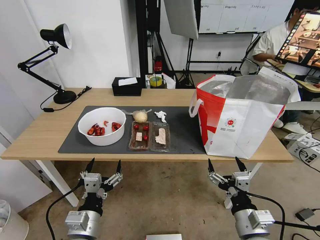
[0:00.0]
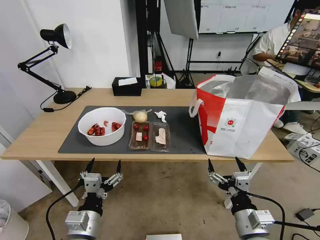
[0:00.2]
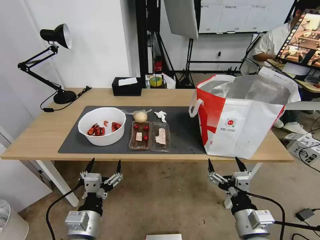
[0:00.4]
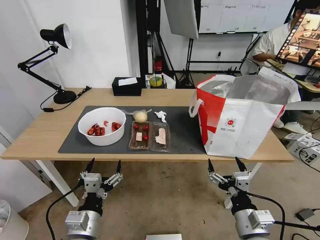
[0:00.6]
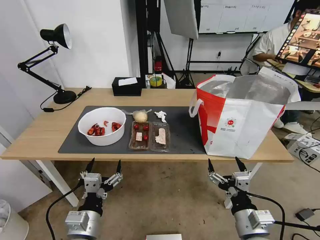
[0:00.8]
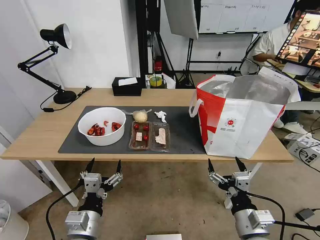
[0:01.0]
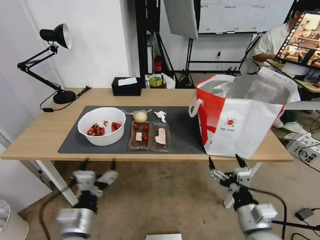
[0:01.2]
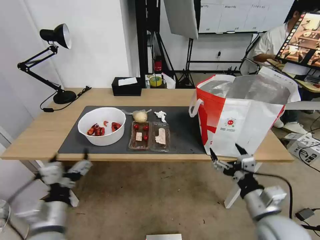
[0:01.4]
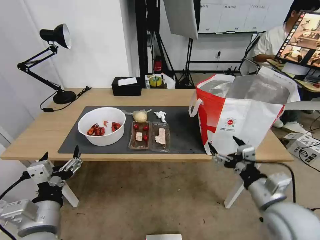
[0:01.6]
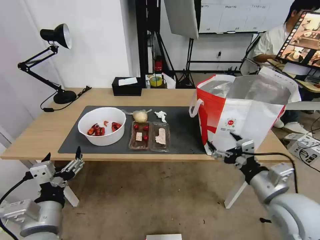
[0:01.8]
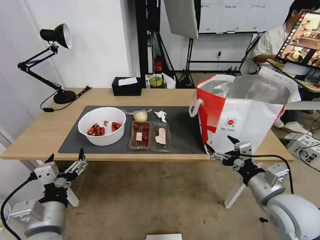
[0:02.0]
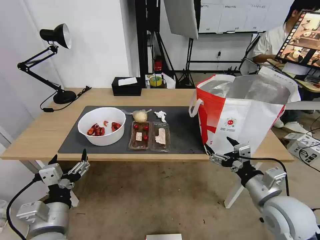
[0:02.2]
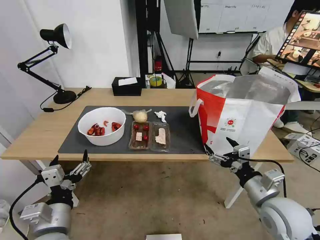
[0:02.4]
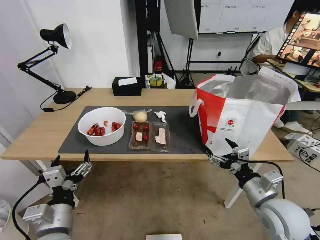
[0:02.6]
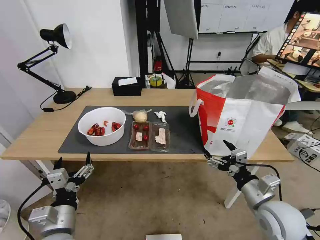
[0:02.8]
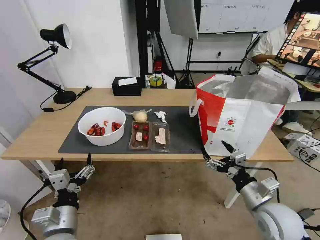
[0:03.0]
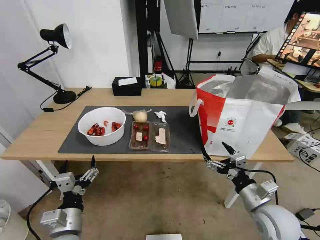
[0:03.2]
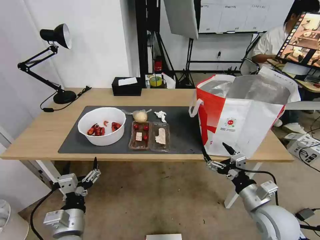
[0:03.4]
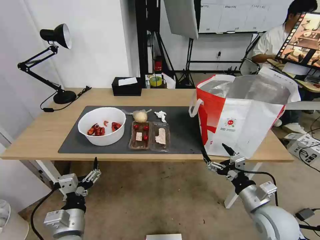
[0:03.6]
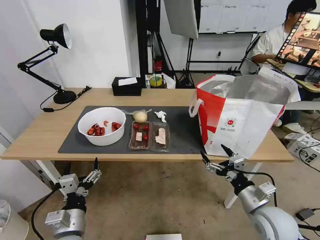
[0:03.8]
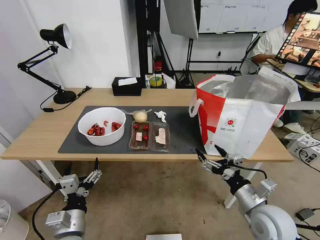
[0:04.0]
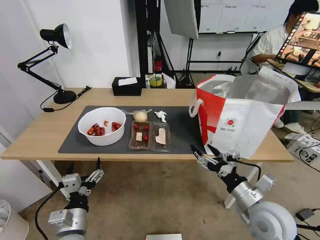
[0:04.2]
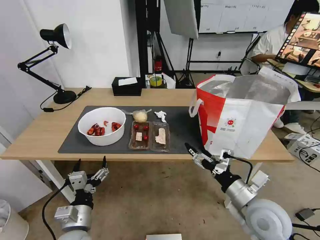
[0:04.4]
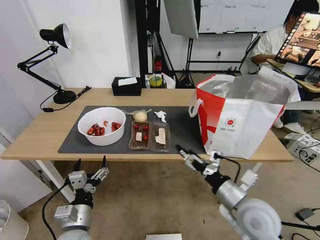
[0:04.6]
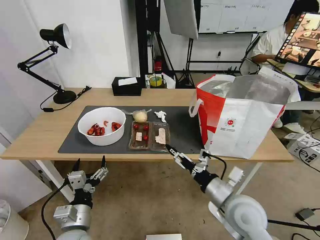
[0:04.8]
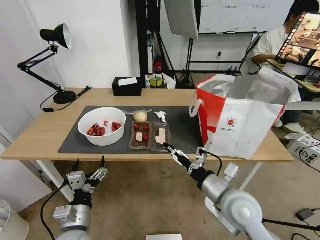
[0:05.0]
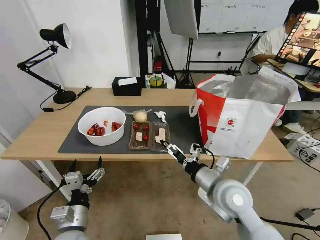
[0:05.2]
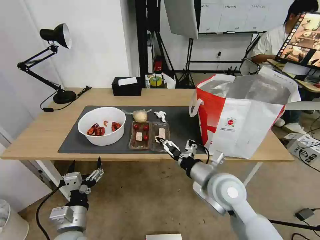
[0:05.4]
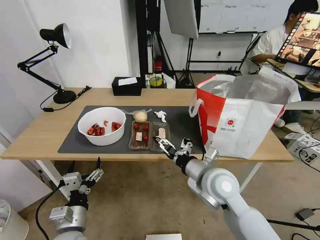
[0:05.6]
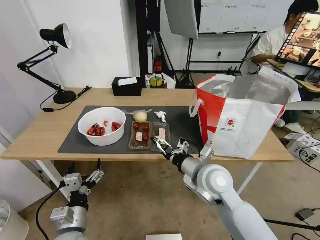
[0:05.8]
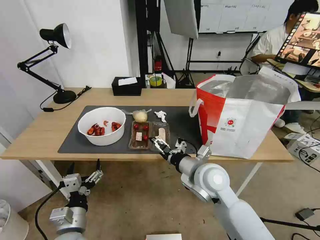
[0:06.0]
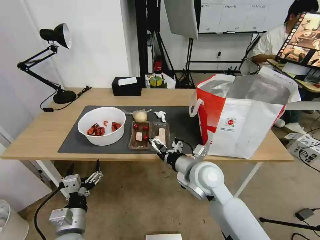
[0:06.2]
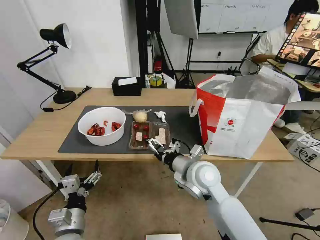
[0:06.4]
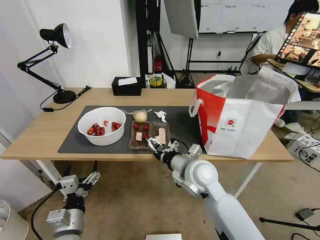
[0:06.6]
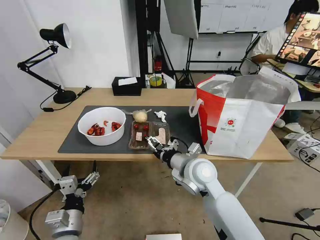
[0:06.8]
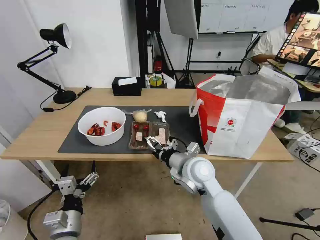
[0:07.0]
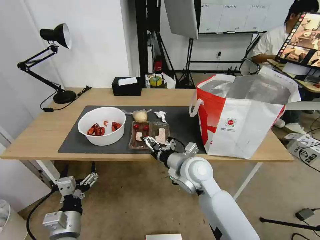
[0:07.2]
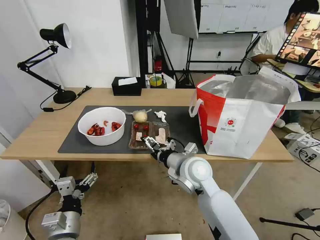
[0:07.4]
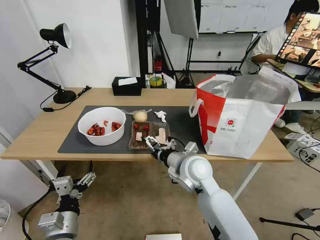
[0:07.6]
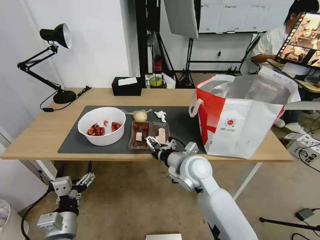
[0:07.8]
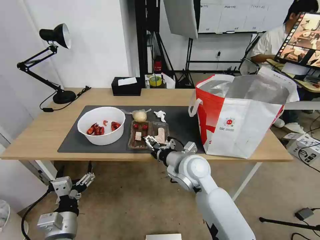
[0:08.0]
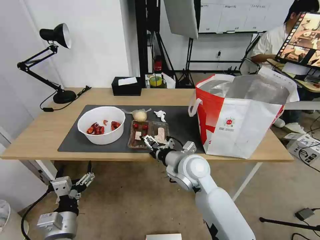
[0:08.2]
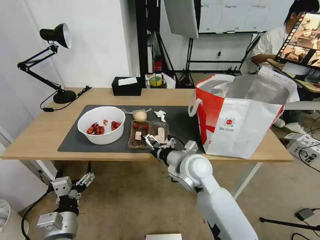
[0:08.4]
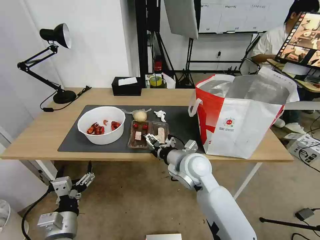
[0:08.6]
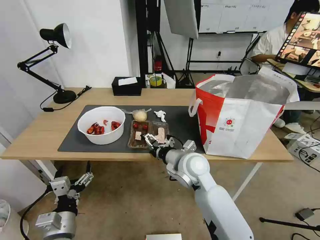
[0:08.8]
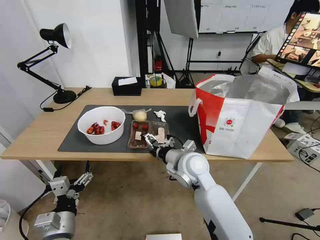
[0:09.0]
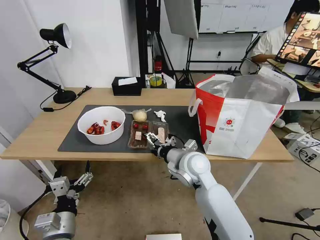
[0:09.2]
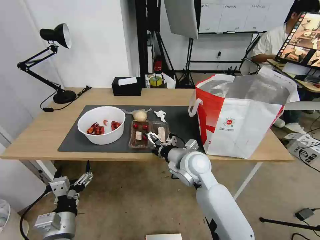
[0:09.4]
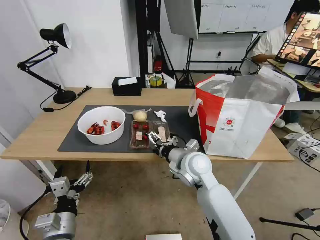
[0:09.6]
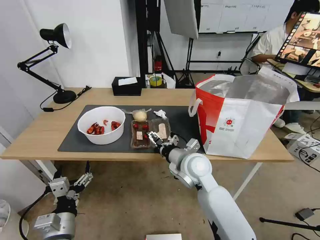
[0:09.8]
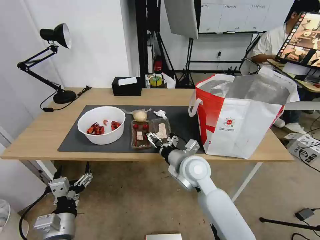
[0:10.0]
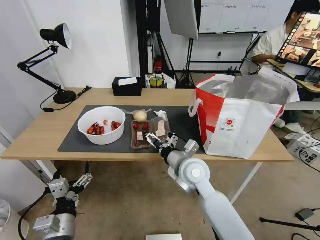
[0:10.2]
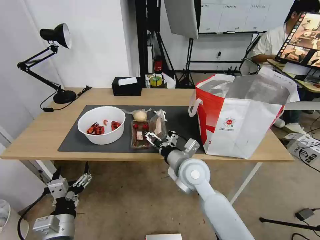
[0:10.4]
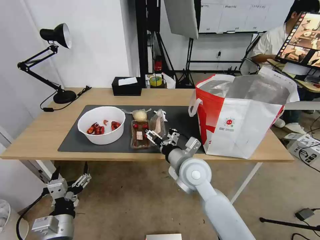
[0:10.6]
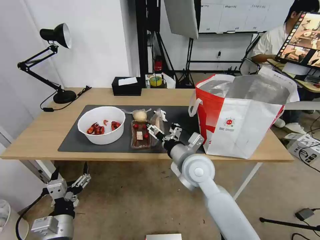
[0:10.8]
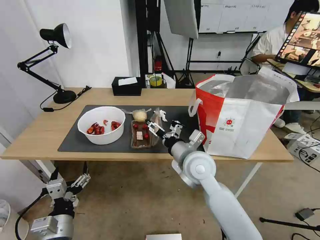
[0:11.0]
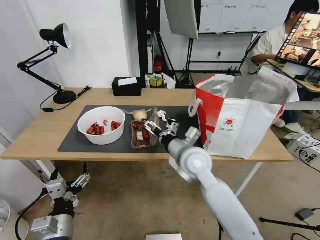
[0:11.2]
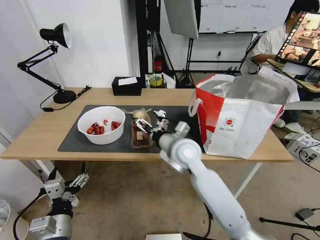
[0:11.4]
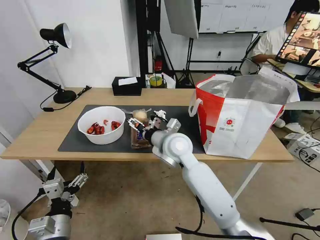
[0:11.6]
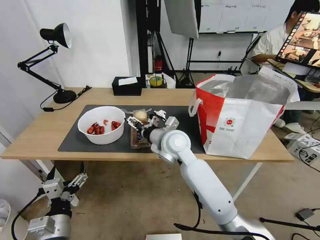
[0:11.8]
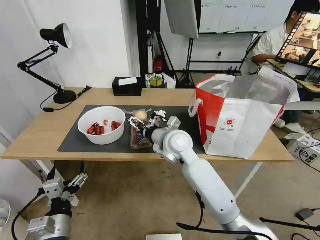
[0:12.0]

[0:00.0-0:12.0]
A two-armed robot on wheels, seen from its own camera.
Task of the whole recording: Pick up the trash from the table and place it into the takeout bag.
0:01.6 to 0:03.0: The right gripper shifts by some 5 cm. Meanwhile the left gripper travels downward by approximately 5 cm.
0:03.0 to 0:04.4: The right gripper ends up approximately 5 cm from where it was.
0:04.4 to 0:06.0: The right gripper goes about 15 cm to the left and forward.
0:06.0 to 0:10.4: The grippers stay close to where they were, moving slightly.
0:10.4 to 0:12.0: The right gripper goes about 10 cm forward.

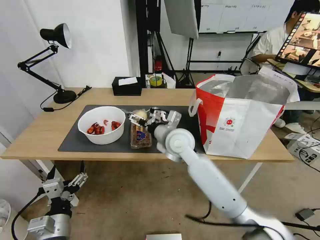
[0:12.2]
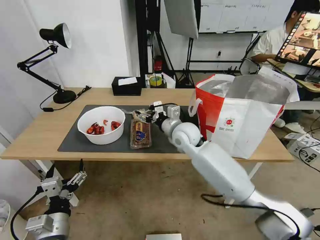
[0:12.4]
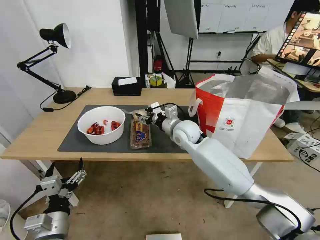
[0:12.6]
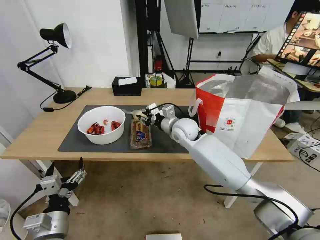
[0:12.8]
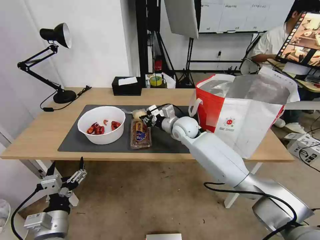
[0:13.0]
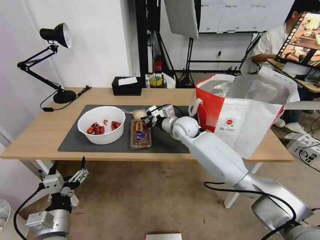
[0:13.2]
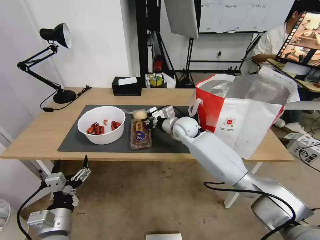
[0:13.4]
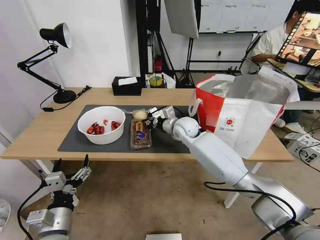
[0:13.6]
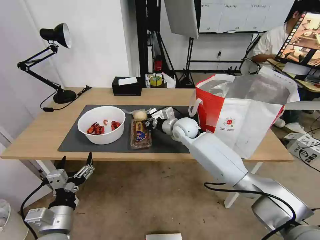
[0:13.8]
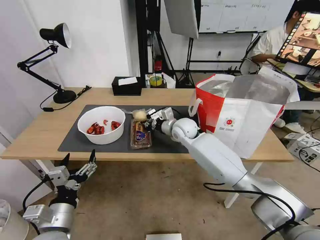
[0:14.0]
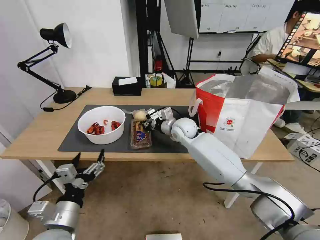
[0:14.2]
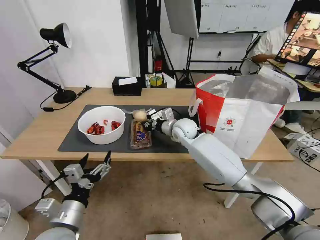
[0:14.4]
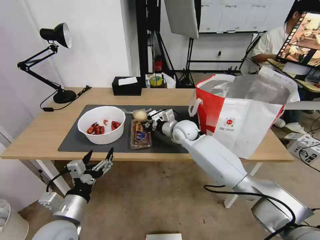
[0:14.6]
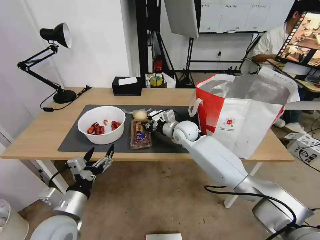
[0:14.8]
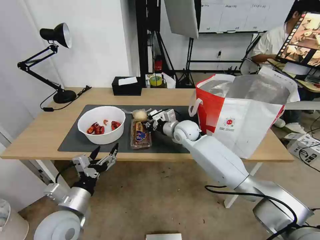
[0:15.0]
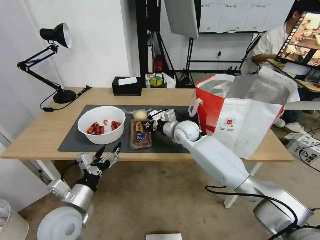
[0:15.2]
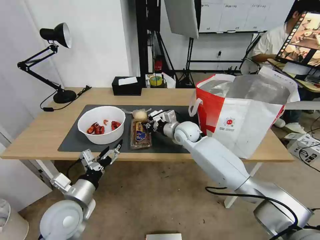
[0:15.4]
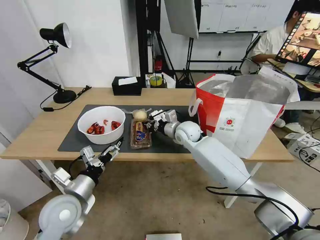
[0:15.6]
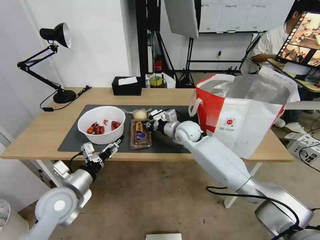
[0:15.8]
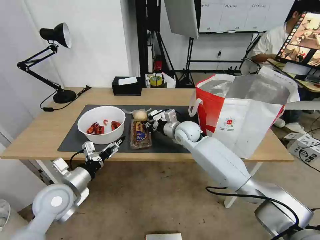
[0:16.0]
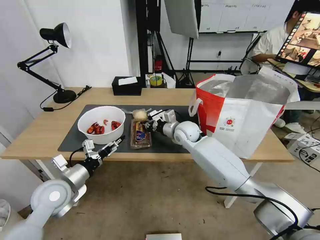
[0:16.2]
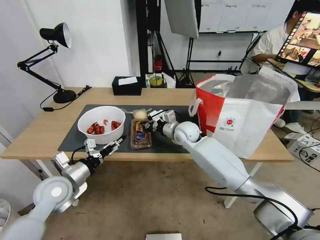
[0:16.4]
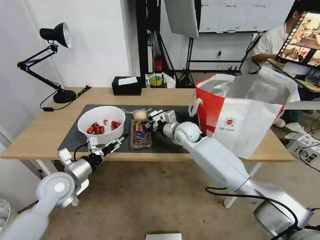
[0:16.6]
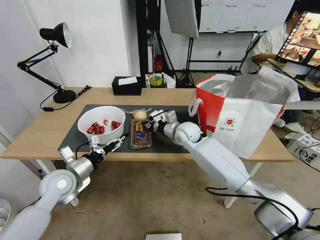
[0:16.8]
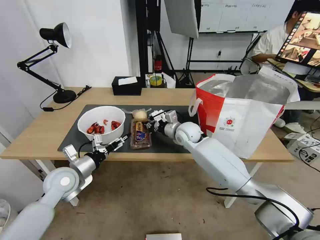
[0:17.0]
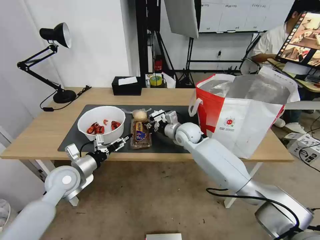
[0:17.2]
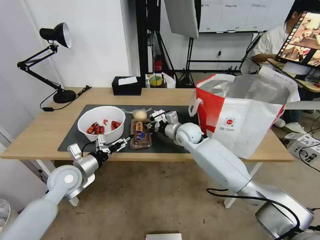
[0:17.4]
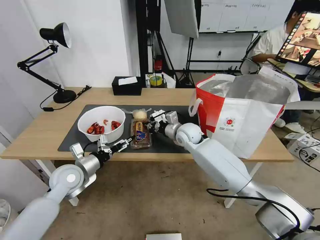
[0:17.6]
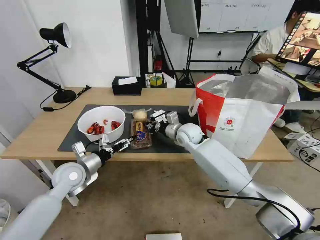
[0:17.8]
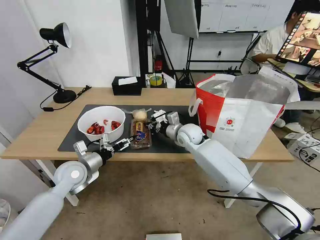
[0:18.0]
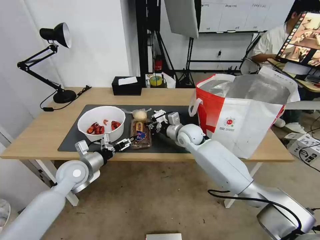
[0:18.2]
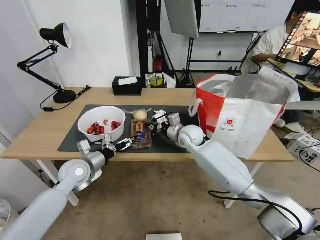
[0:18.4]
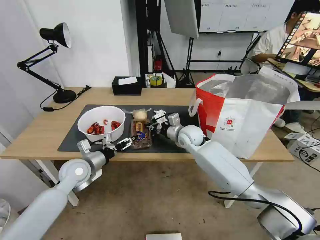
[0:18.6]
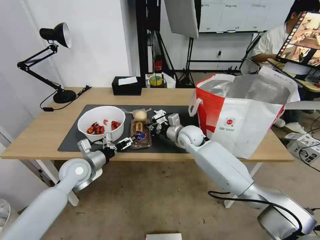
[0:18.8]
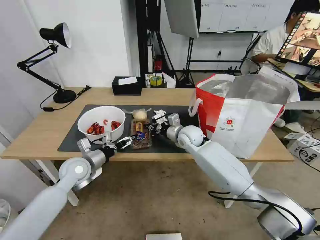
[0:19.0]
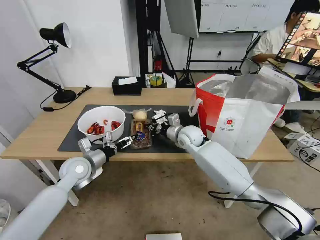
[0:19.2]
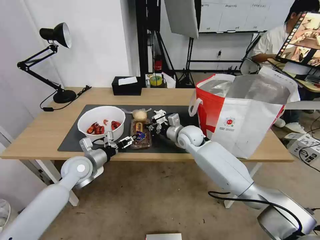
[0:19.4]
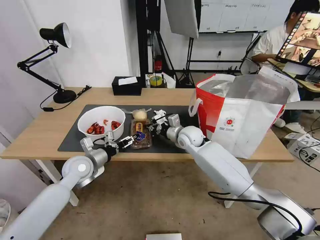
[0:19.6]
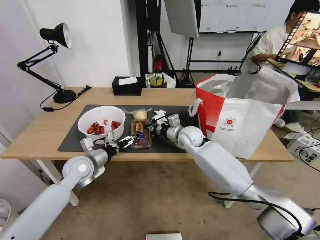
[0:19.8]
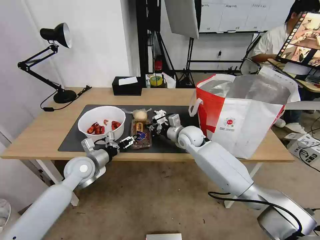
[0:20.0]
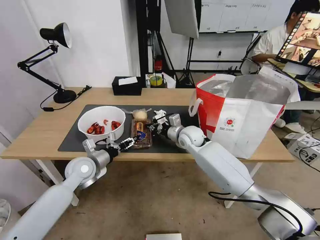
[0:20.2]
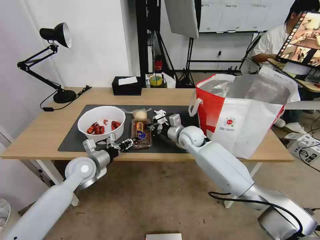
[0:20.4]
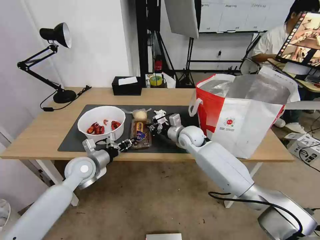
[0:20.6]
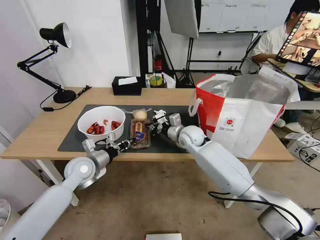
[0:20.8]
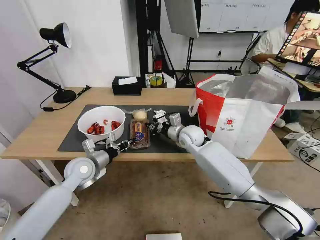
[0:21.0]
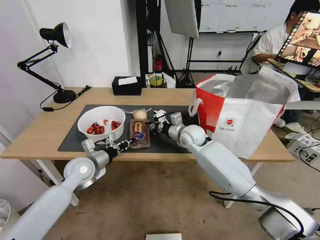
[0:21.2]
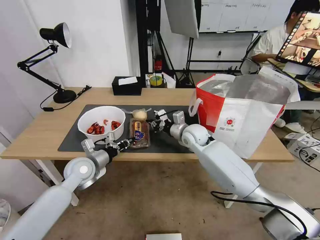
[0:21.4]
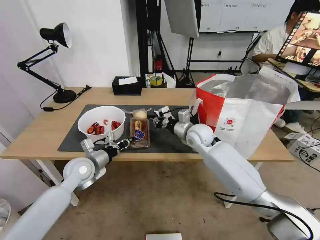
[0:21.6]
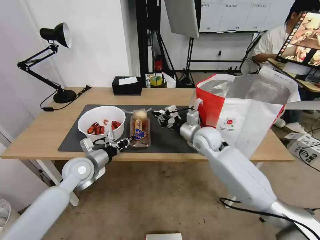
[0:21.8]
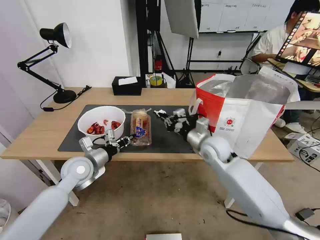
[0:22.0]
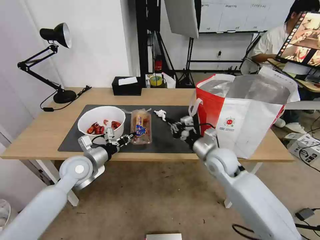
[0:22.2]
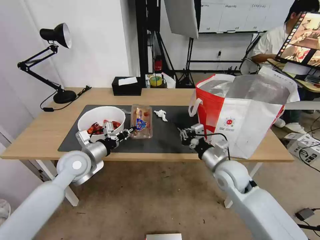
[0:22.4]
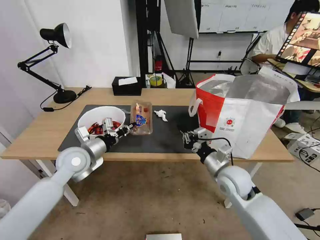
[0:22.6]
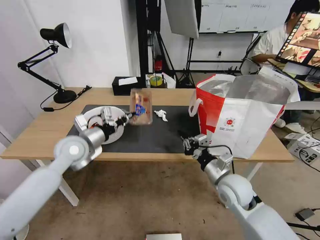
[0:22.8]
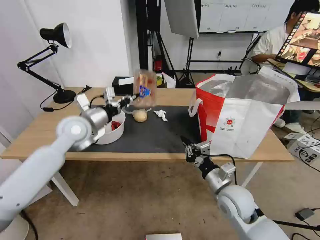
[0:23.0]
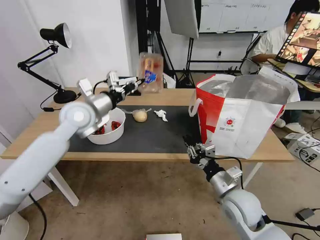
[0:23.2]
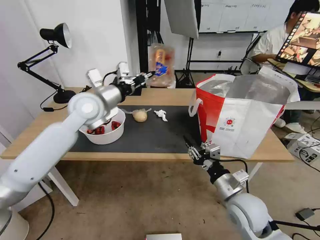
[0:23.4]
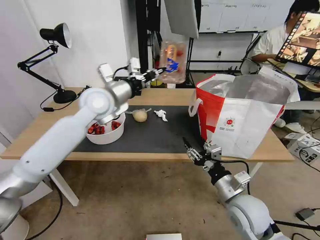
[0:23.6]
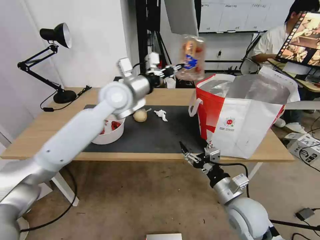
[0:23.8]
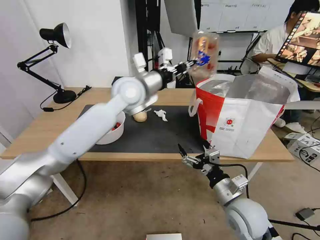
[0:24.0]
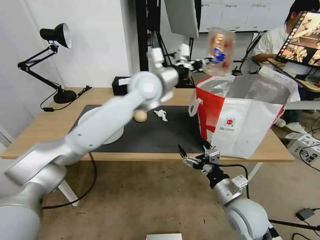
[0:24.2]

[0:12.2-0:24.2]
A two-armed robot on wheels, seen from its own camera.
Task of the whole recording: Pick up the trash from the table and place it into the takeout bag.
0:12.2 to 0:13.8: The right gripper travels forward by roughly 10 cm, and closes.
0:13.8 to 0:15.2: The left gripper is displaced forward by some 5 cm.
0:15.2 to 0:16.6: The left gripper goes some 10 cm forward and to the left.
0:16.6 to 0:18.2: The left gripper moves forward, some 5 cm.
0:18.2 to 0:19.8: The grippers make only small movements.
0:19.8 to 0:21.2: The left gripper closes.
0:21.2 to 0:22.6: The left gripper heads upward, covering approximately 5 cm. Meanwhile the right gripper heads backward and to the right, covering some 20 cm.
0:22.6 to 0:24.2: The left gripper is displaced to the right, upward and forward by roughly 30 cm, while the right gripper is displaced backward by about 10 cm, and opens up.
